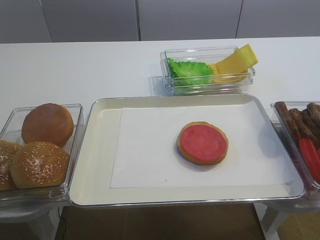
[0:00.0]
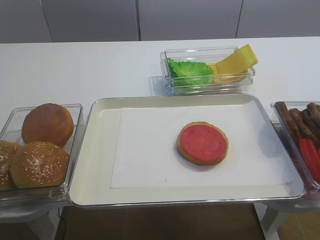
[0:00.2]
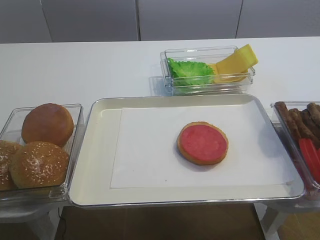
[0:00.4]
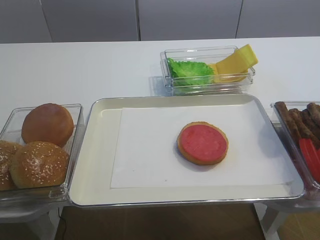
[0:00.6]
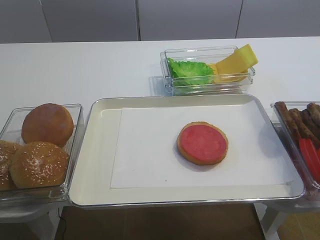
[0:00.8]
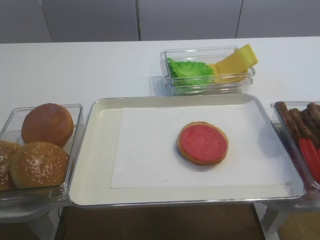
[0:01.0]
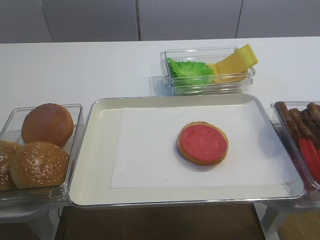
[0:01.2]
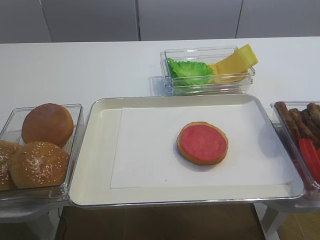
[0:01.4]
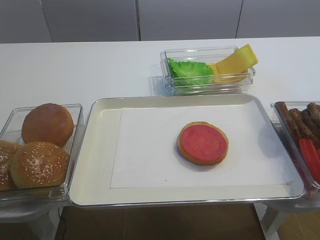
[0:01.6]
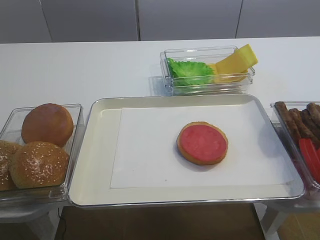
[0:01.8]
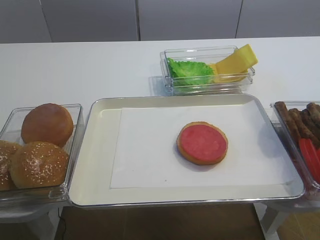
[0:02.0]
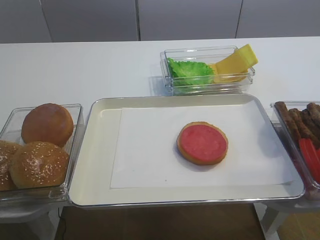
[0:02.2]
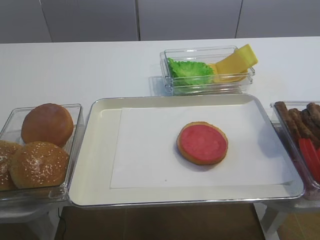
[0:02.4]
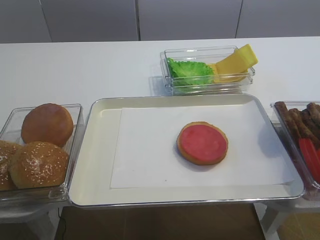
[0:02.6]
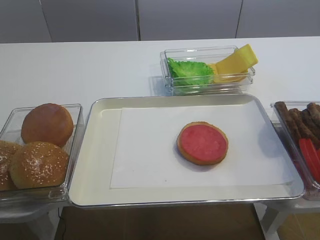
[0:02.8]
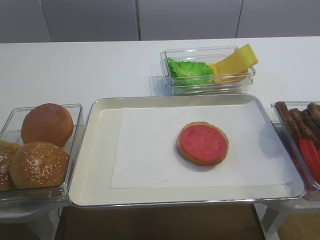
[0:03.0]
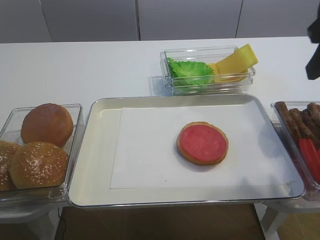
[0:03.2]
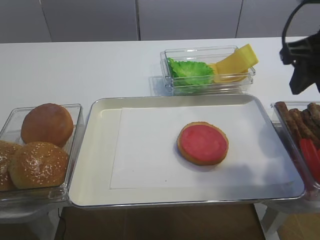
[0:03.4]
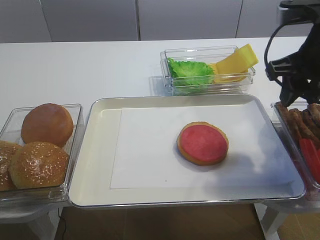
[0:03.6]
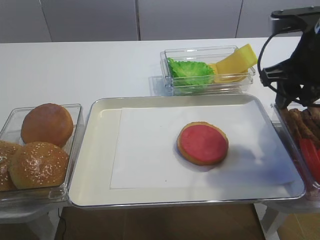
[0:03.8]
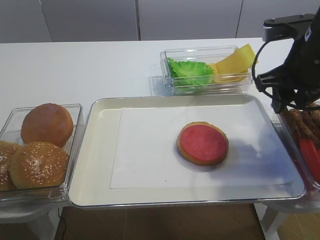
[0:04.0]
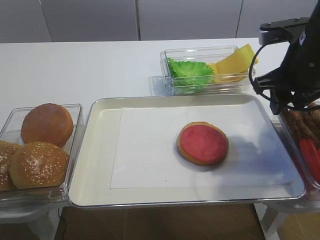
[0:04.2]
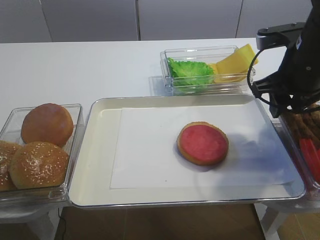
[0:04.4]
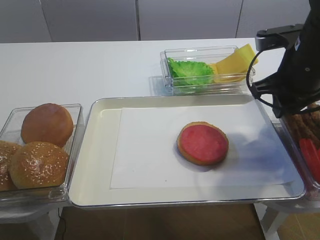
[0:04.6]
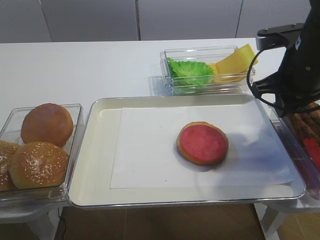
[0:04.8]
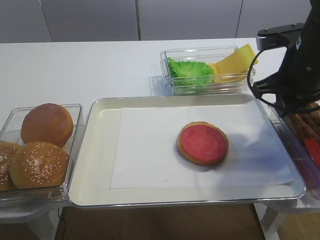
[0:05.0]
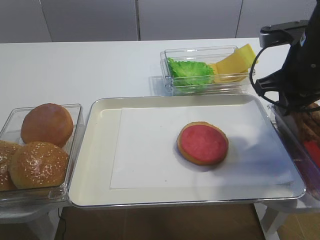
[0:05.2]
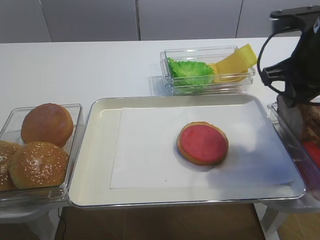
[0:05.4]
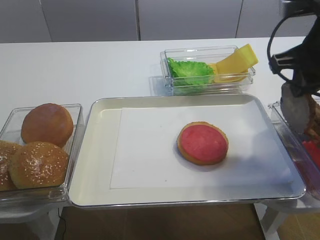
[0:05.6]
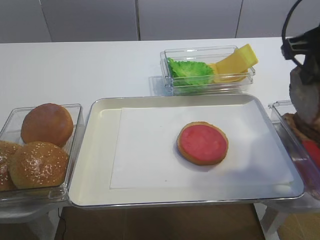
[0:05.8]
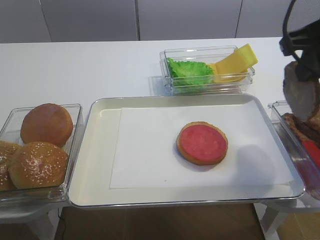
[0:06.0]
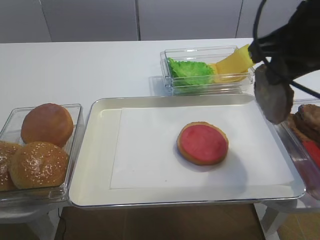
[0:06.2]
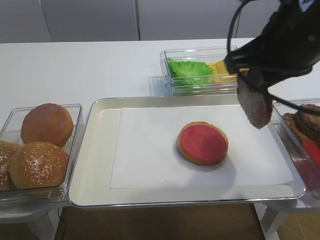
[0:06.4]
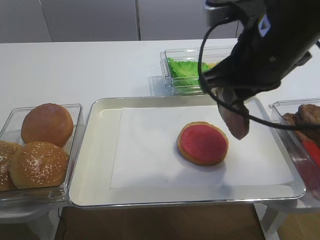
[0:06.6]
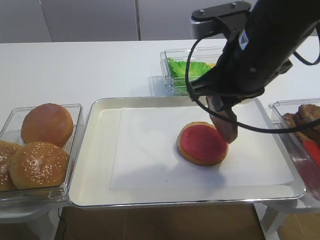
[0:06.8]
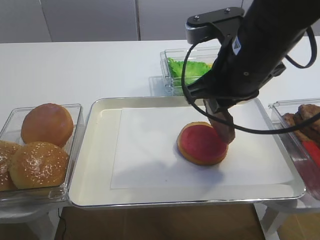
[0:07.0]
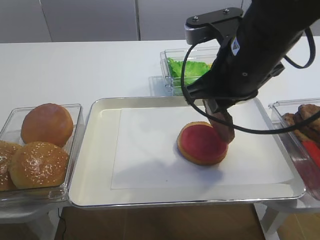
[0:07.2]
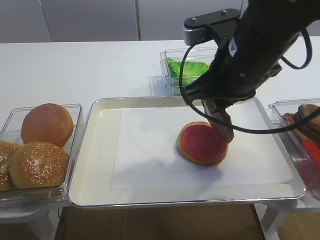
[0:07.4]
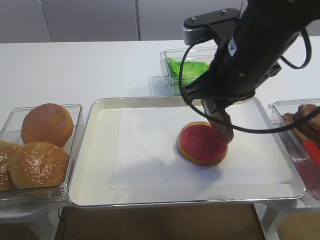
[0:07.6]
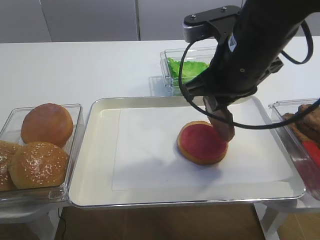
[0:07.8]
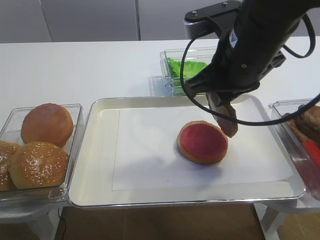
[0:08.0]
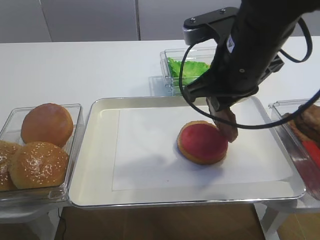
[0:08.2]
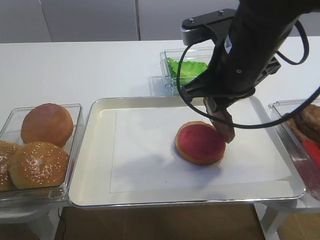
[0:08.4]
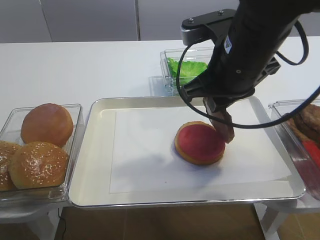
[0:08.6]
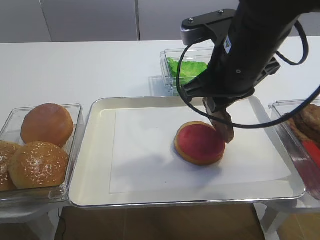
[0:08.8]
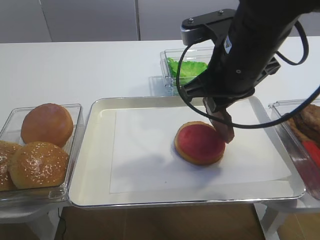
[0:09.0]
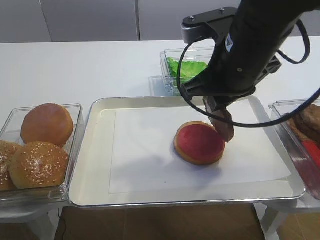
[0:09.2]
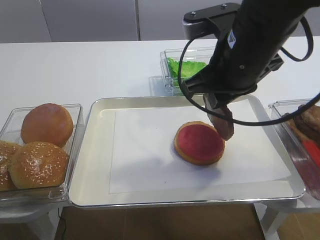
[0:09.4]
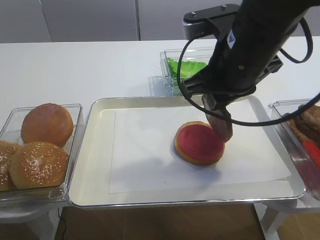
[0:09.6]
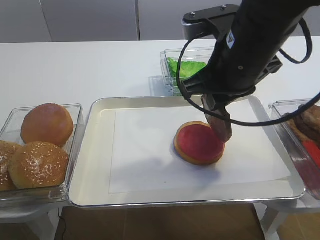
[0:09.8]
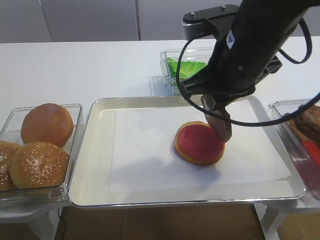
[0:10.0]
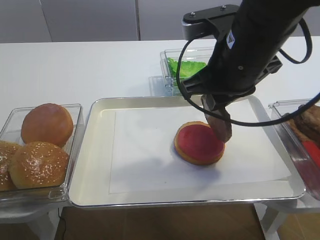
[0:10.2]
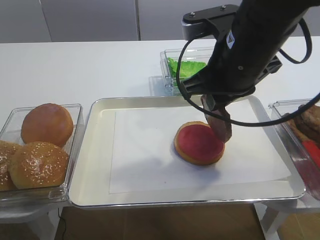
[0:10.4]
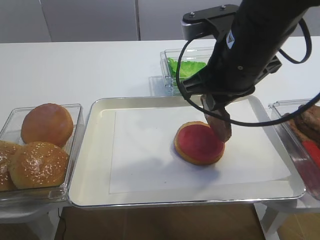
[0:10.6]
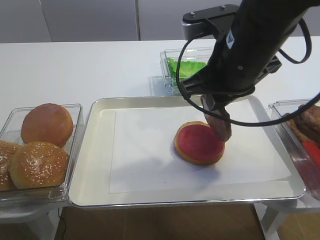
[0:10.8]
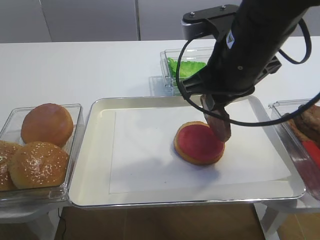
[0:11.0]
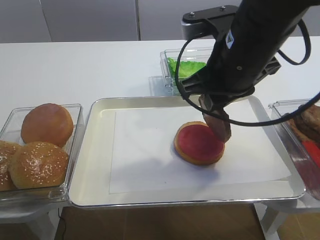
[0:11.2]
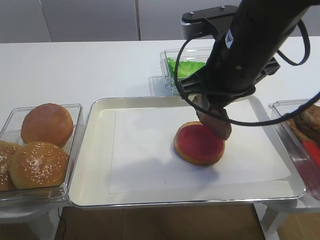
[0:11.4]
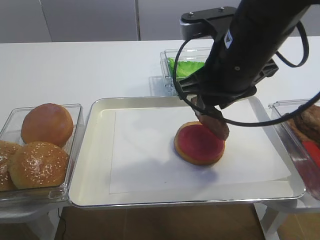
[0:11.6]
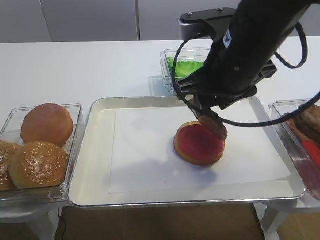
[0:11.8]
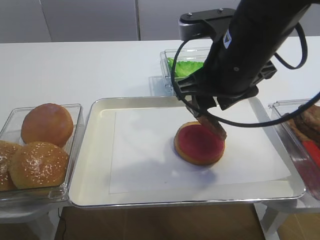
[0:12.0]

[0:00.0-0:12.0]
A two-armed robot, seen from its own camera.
Step, 0.0 to 5.4 s: Pick up the cutlet with the right gripper.
1.6 to 3.0 s: The right gripper goes about 25 cm forward and upward.
3.0 to 4.4 s: The right gripper travels downward and forward by approximately 15 cm.
4.4 to 6.0 s: The right gripper shifts approximately 10 cm upward and backward, and closes its fingers.
6.0 to 7.6 s: The right gripper moves to the left and downward, about 10 cm.
7.6 to 10.4 s: Neither gripper changes place.
10.4 to 12.0 s: The right gripper opens up.

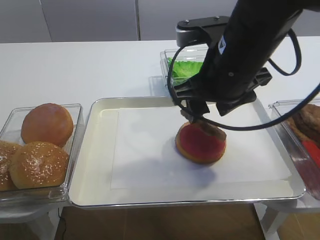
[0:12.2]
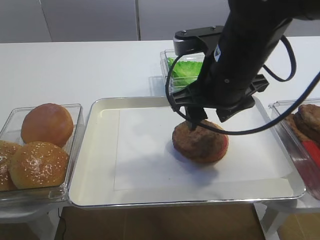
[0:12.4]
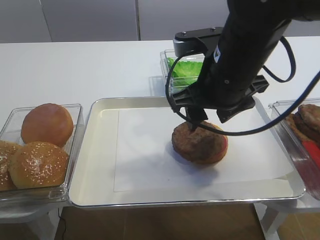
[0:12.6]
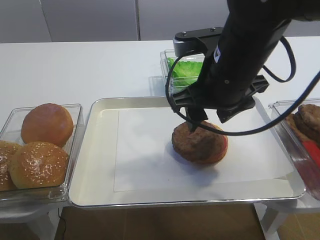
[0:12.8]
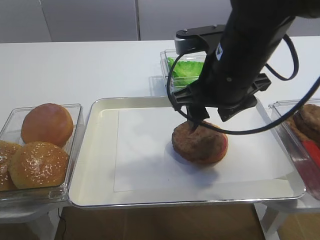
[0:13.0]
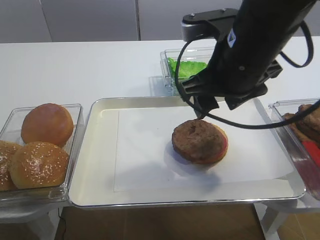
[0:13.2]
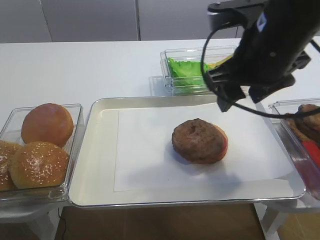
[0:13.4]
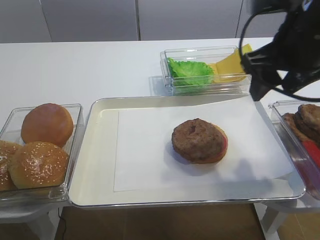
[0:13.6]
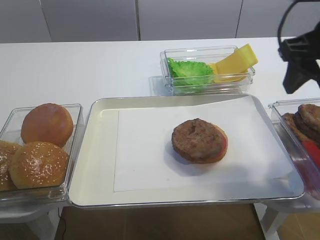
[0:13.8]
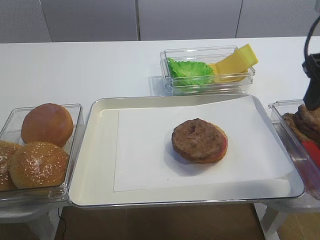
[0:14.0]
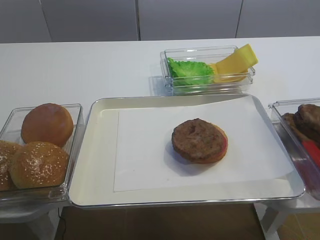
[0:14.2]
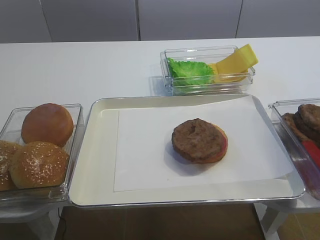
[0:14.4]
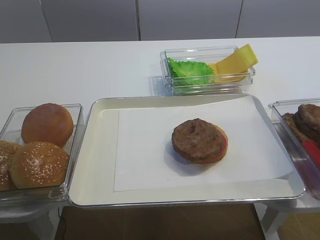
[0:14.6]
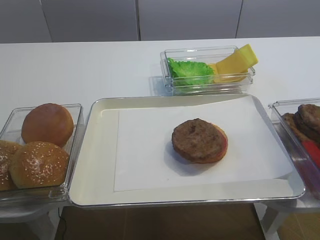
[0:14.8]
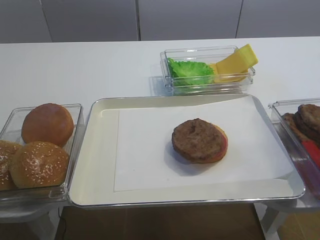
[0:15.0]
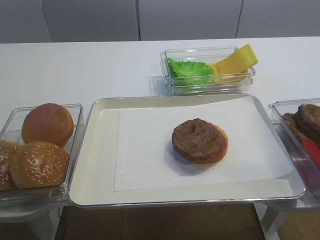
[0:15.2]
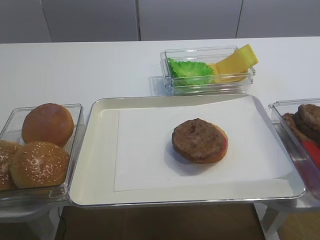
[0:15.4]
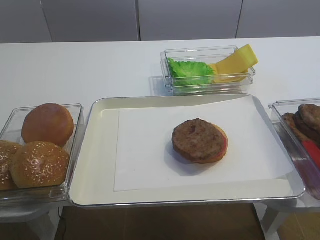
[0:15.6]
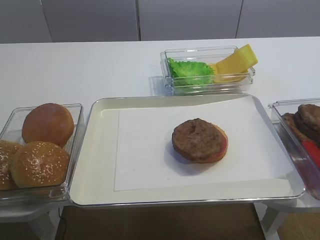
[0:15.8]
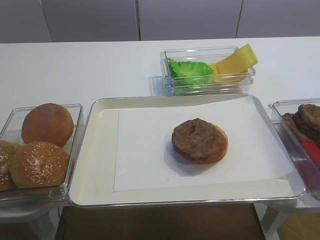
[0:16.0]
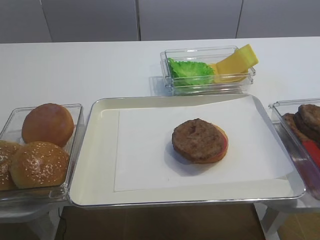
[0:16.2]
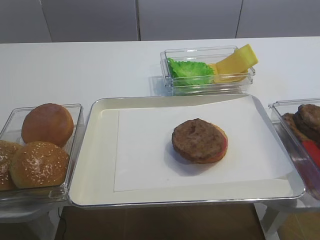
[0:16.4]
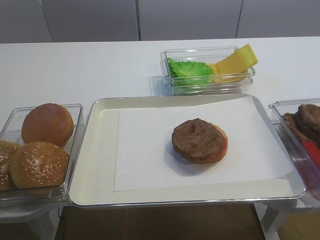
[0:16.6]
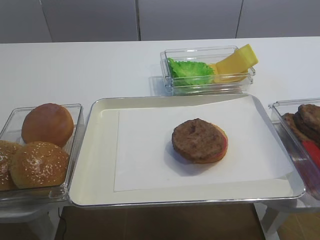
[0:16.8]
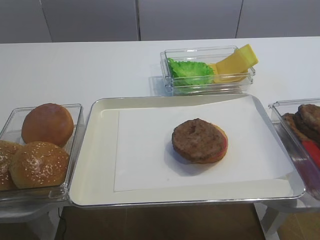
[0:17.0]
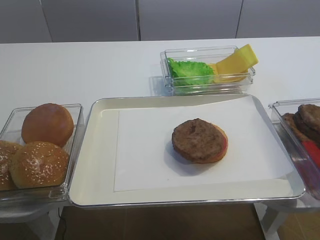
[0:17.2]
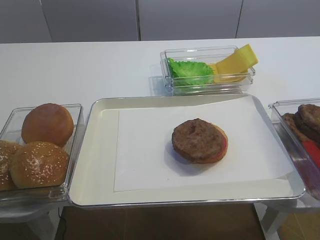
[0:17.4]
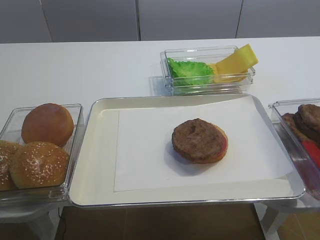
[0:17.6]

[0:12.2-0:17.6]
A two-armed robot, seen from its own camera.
12.2 to 13.6 s: The right gripper shifts approximately 10 cm to the right.
13.6 to 15.0 s: The right gripper travels backward by approximately 25 cm.
16.2 to 17.6 s: Both grippers stay about where they are.

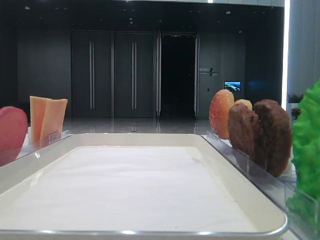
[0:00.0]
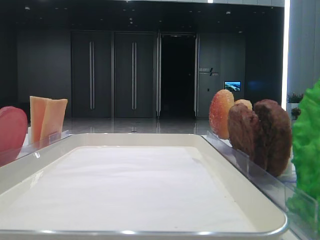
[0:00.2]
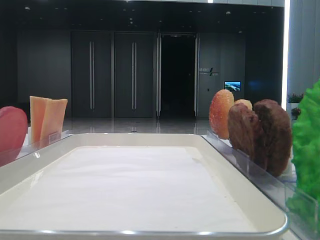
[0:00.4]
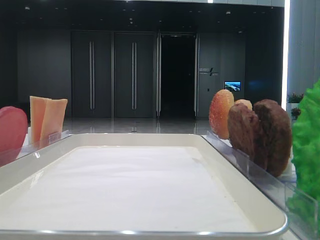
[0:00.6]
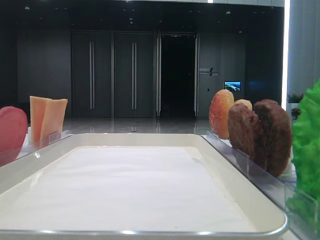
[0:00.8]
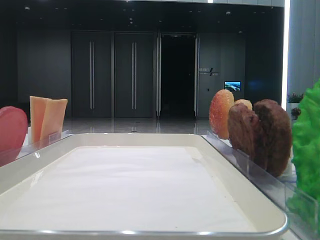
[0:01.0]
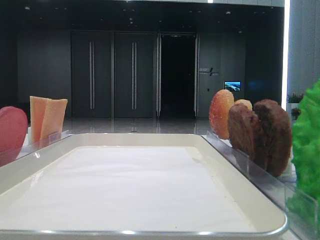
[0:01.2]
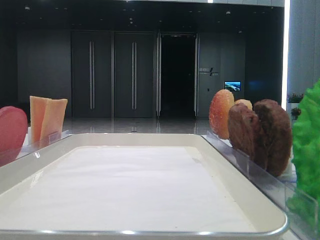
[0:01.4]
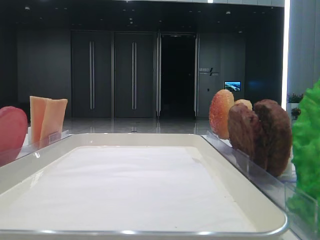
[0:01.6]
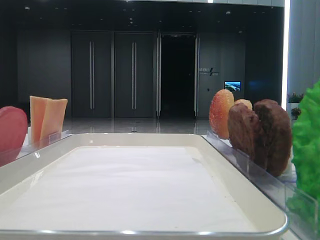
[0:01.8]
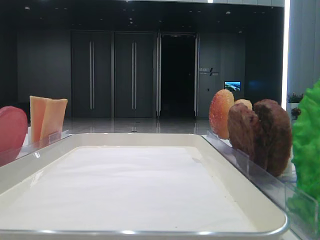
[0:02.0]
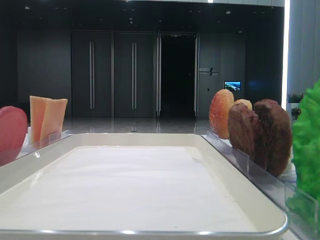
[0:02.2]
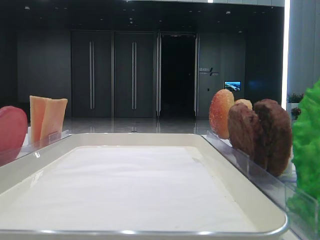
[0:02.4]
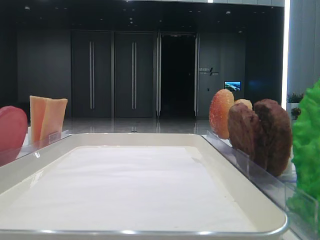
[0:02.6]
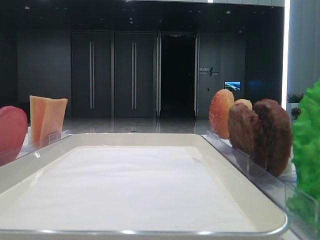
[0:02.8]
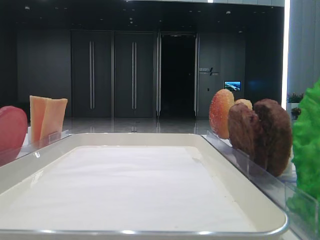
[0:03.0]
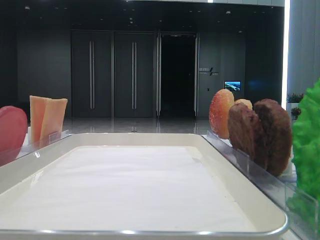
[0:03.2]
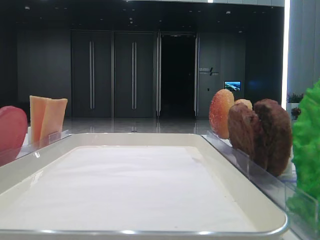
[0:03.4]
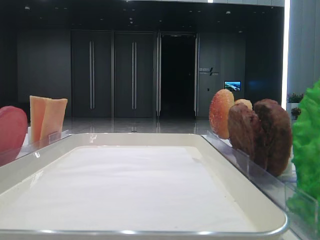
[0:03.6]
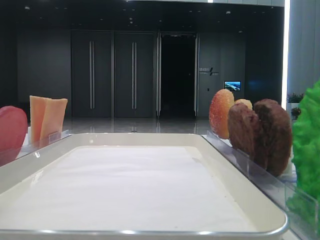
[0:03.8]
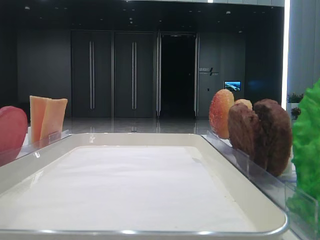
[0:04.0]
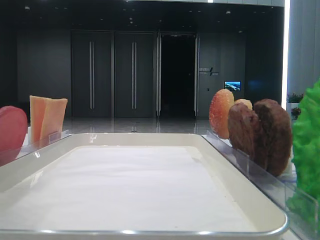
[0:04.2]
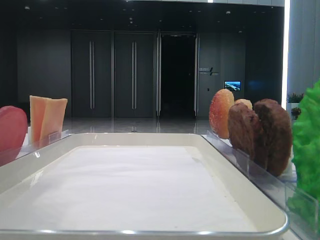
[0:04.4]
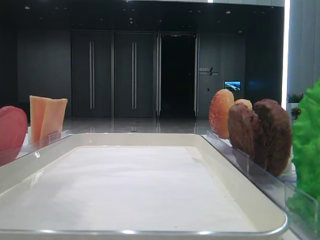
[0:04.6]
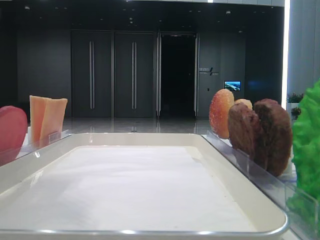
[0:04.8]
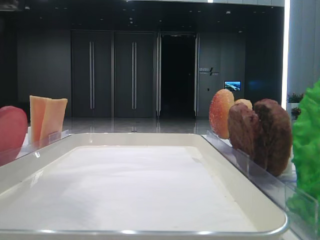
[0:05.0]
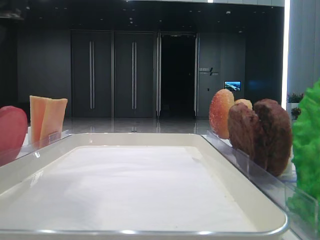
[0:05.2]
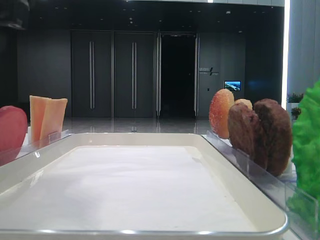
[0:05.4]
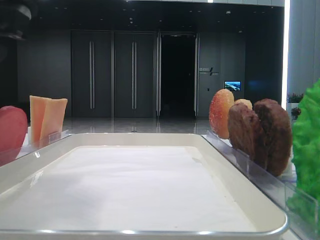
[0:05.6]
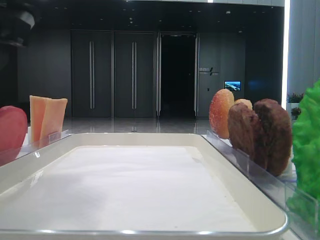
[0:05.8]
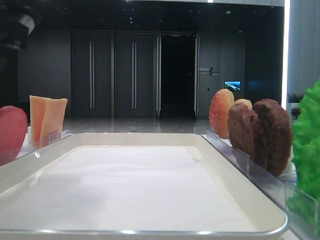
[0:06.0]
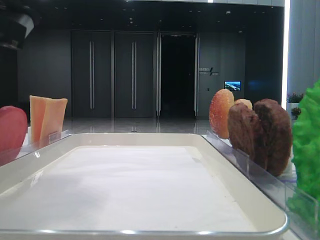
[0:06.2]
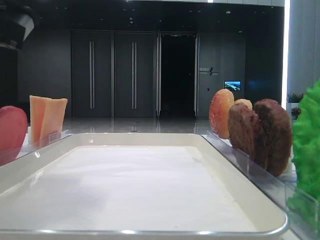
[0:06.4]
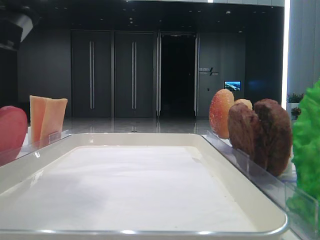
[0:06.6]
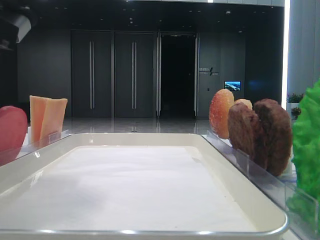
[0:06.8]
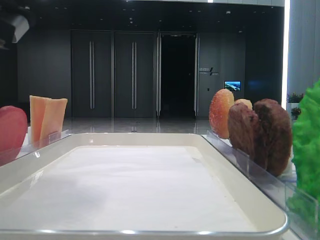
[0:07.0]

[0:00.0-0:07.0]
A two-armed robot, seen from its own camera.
2.8 to 4.2 s: The left gripper shifts about 10 cm to the right.
4.2 to 5.6 s: The left gripper goes some 5 cm downward.
